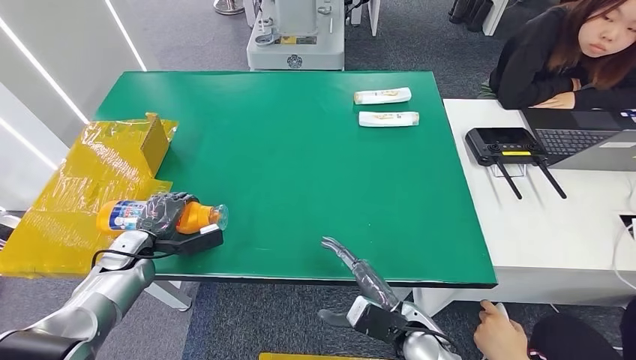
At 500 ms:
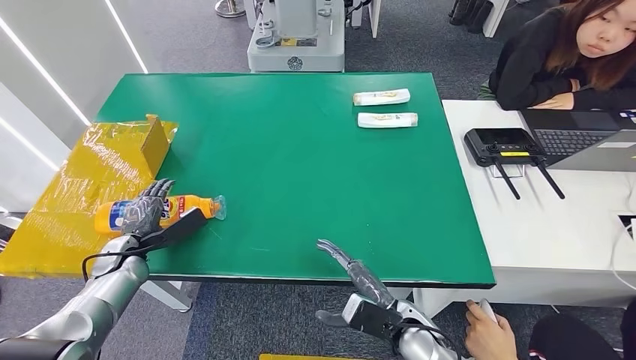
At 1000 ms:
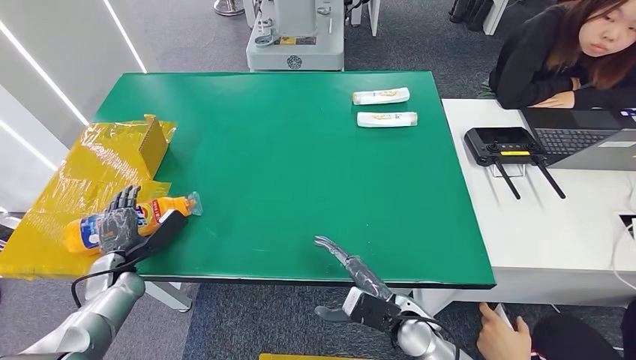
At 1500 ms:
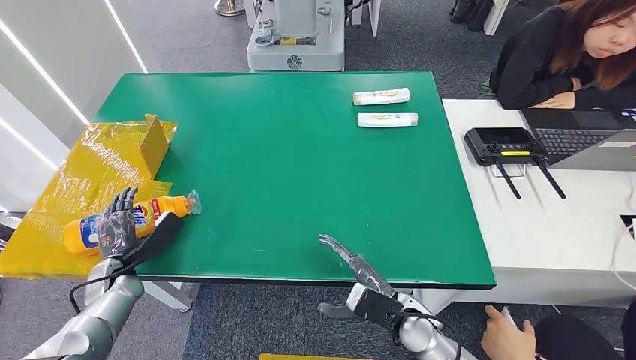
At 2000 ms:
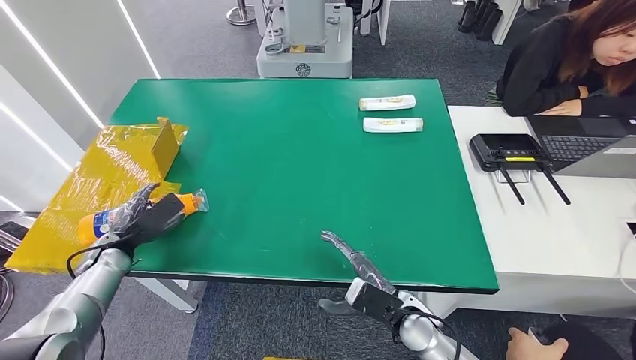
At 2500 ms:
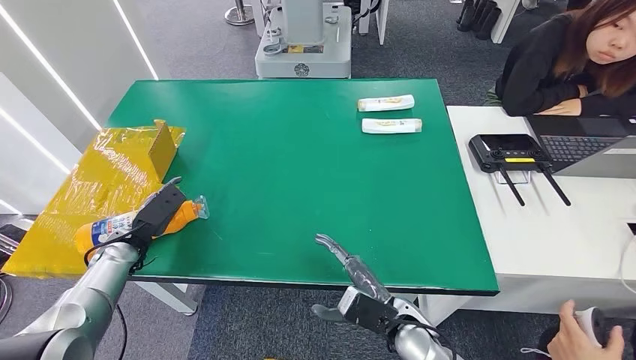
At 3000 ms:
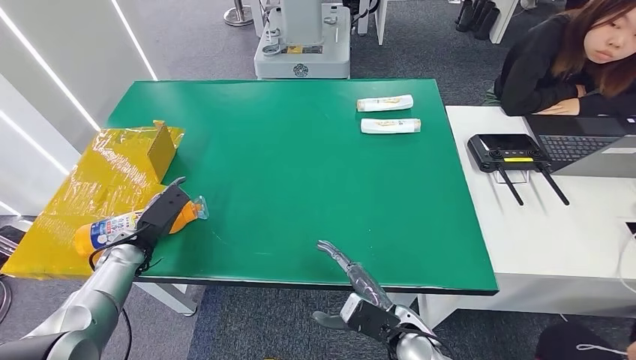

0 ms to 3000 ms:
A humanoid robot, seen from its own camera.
Step, 0 ms to 3000 ms: Turn the bottle to the front side.
0 ms to 1500 ms: The left hand ends up about 5 cm from where it was.

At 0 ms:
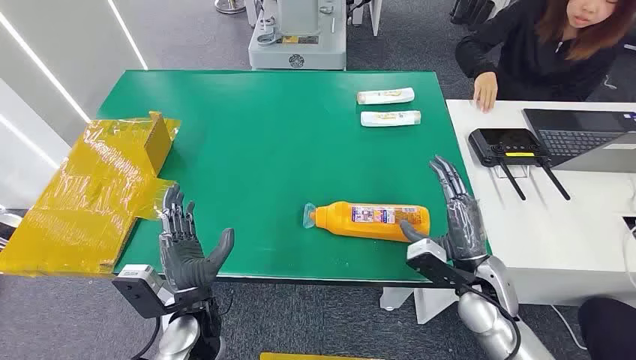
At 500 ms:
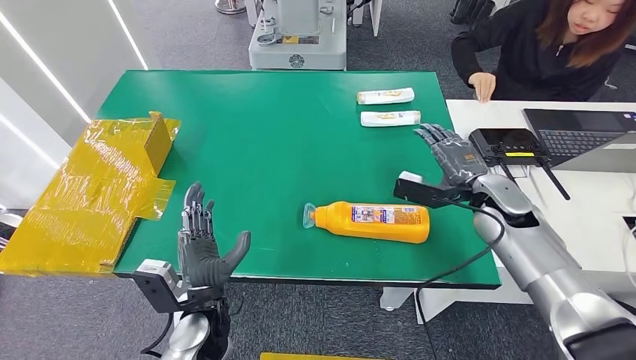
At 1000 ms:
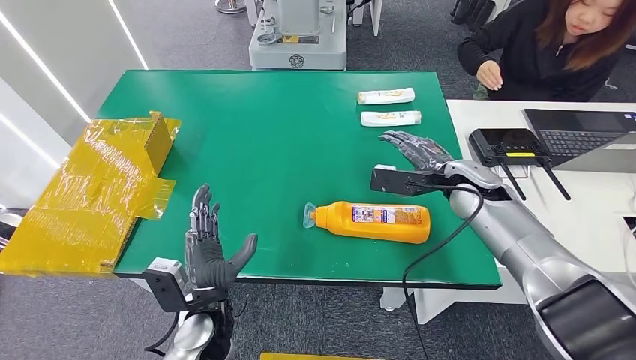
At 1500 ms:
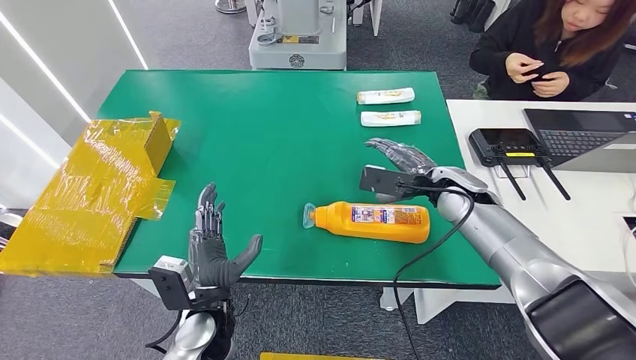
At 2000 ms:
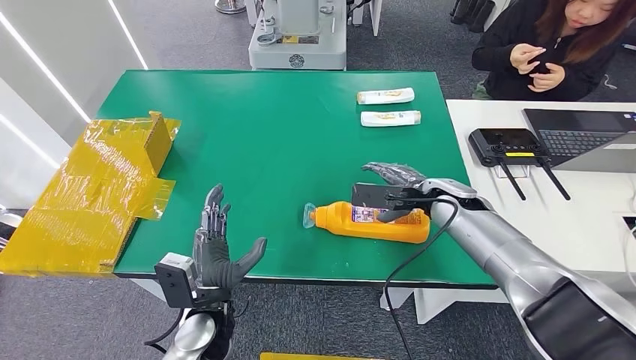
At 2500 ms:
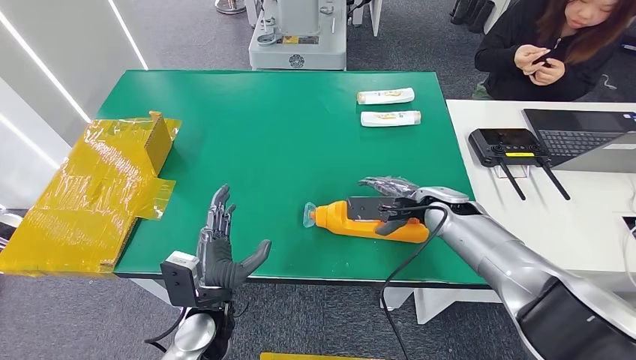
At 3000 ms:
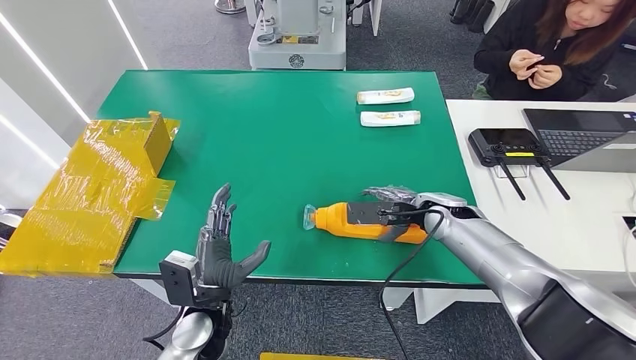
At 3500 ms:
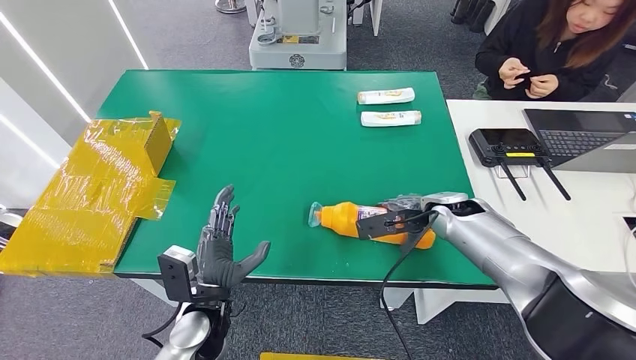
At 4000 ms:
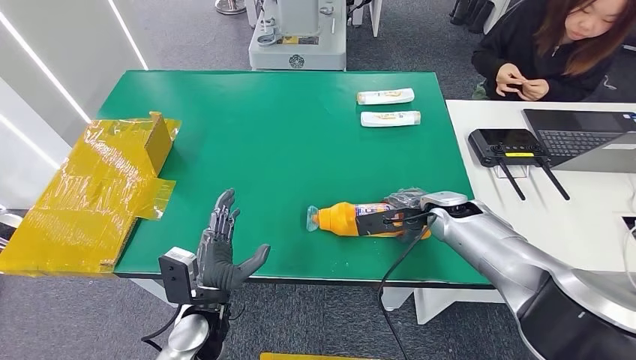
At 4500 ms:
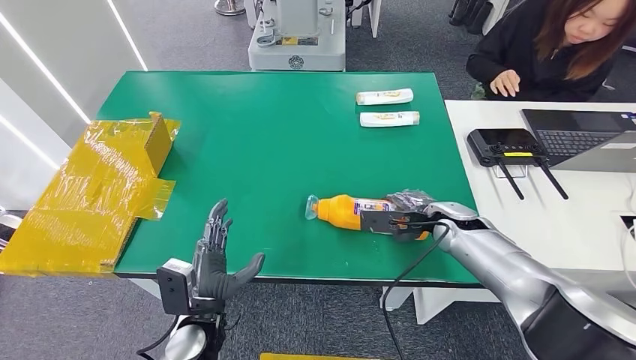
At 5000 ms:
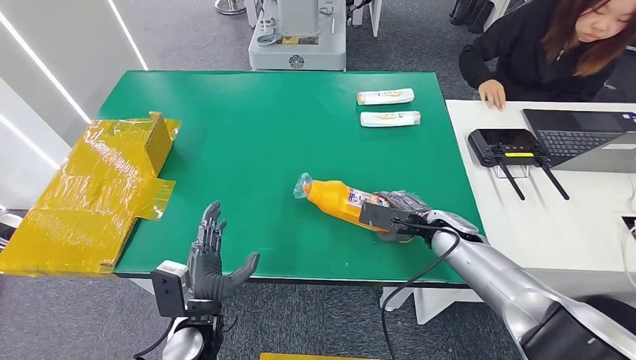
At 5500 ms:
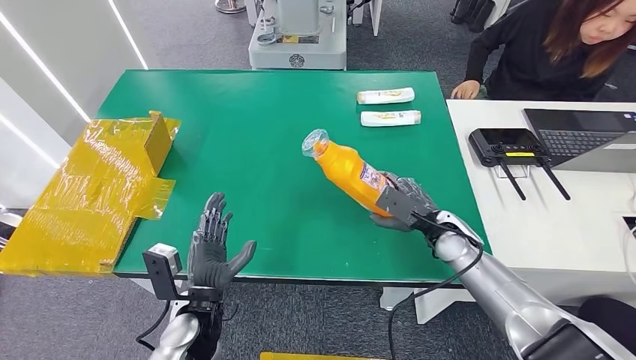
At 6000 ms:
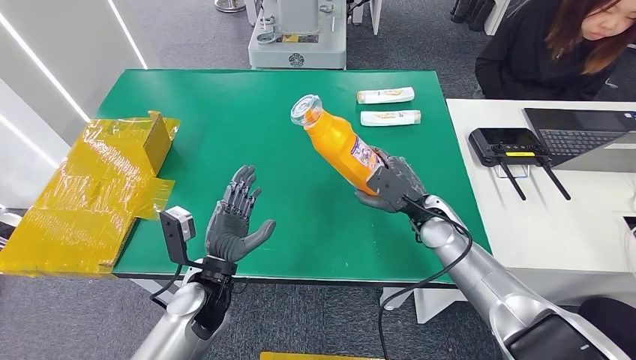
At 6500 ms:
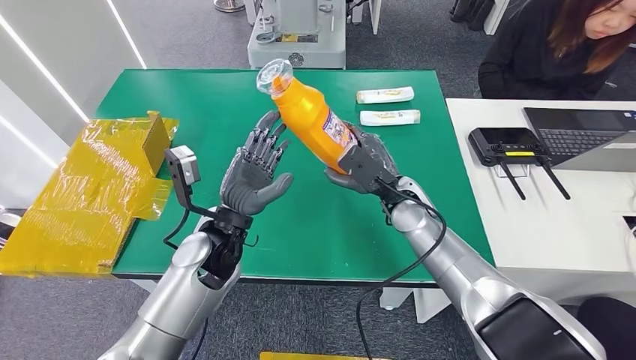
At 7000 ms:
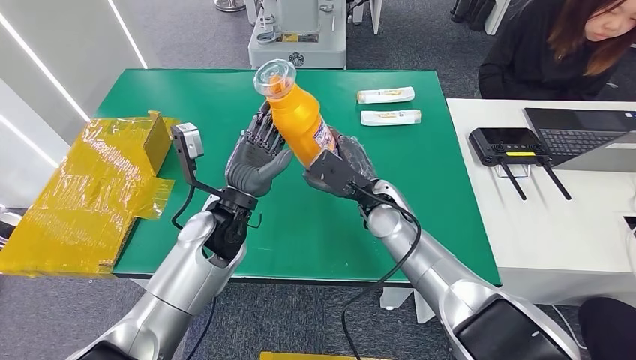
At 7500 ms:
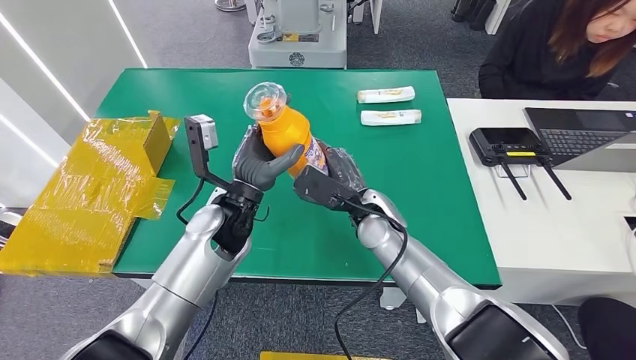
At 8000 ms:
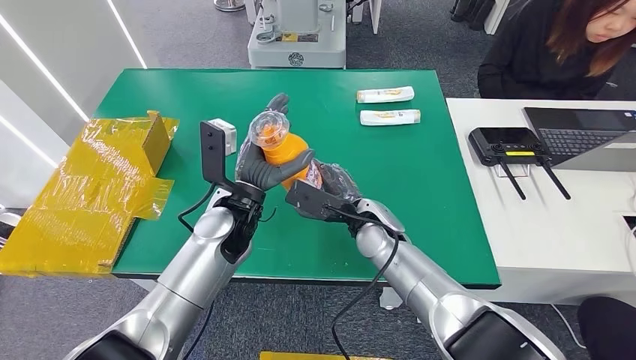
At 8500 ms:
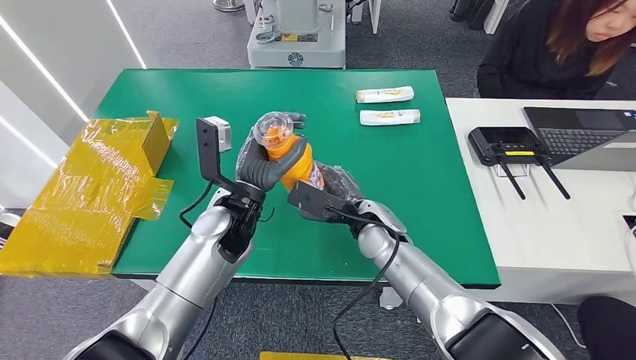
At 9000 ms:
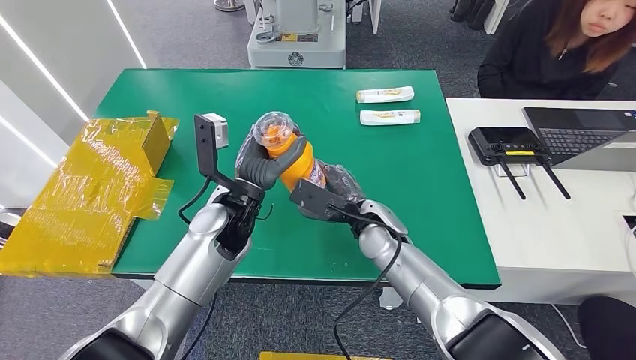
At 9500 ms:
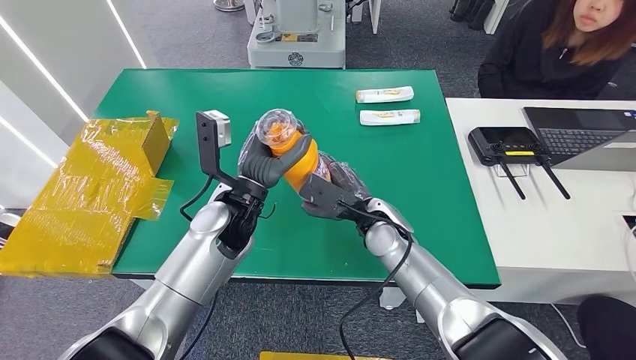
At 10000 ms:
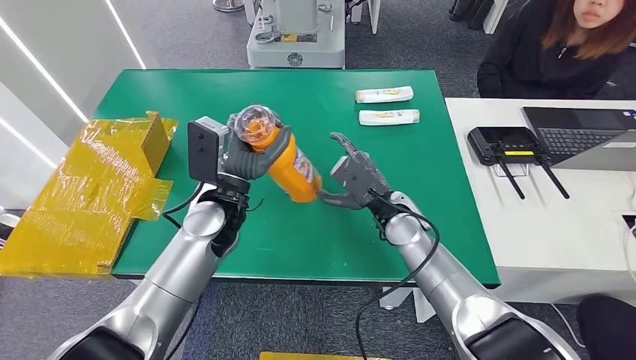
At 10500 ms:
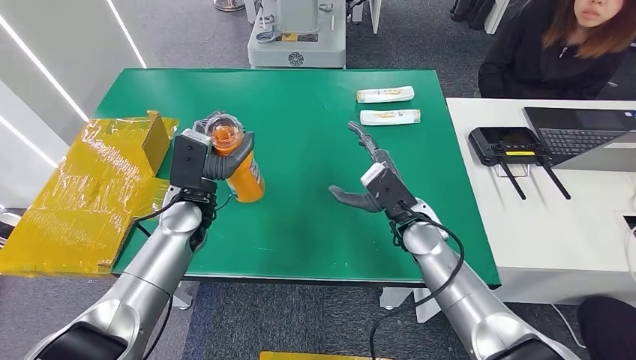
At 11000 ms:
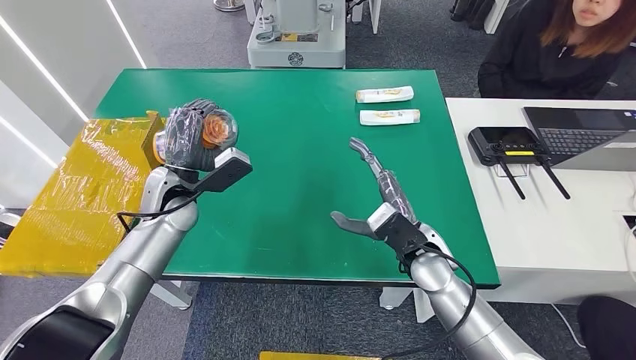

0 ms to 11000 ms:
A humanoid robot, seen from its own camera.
Step, 0 ms to 6000 ms: Pick up the bottle from the table.
3500 ms to 5500 ms: The right hand ends up approximately 5 cm from where it was.
7500 ms to 9000 ms: The hands stay close to where they were, moving slightly.

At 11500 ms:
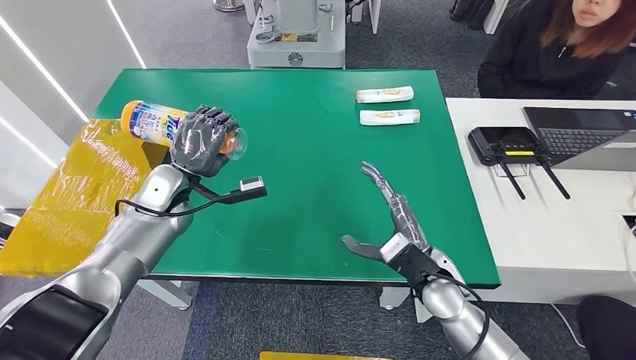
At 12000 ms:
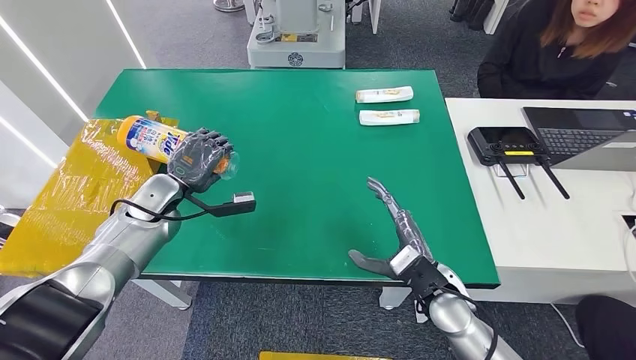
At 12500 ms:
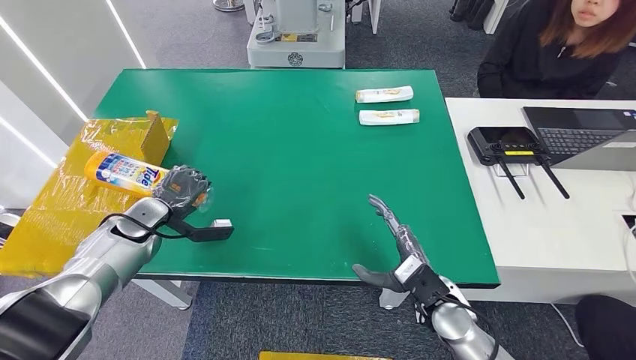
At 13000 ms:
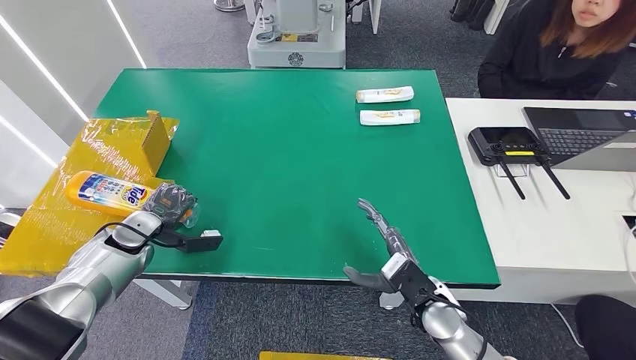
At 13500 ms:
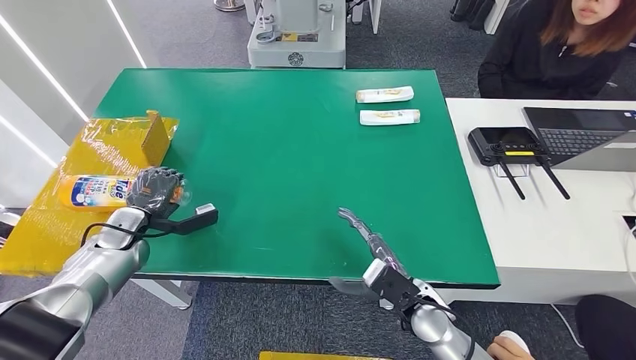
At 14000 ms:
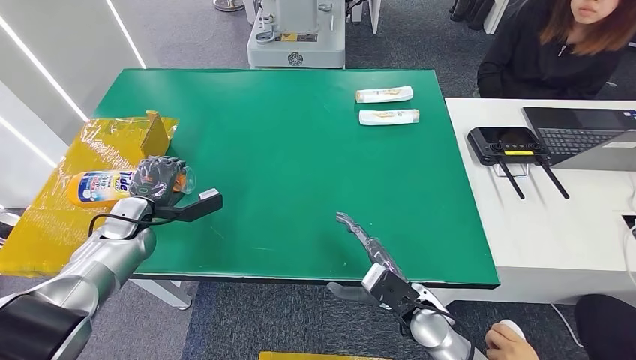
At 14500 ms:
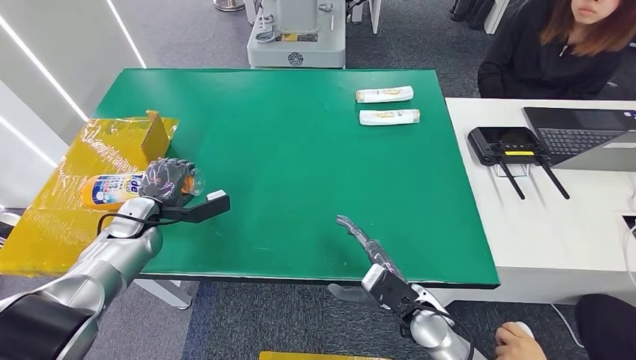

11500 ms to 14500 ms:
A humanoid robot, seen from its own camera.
Step, 11500 ms to 14000 ms: Turn the bottle to the front side.
11500 ms to 13000 ms: The left hand travels to the left and downward by approximately 15 cm. Meanwhile the right hand shifts roughly 5 cm downward.
